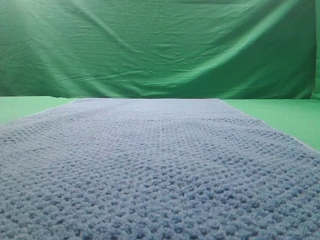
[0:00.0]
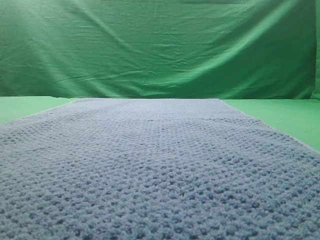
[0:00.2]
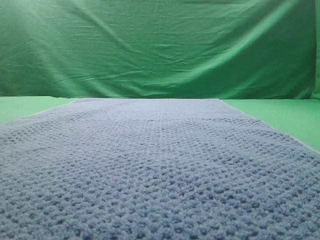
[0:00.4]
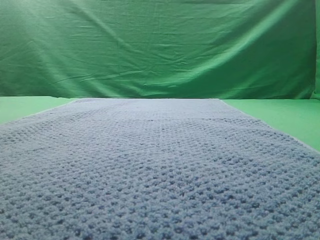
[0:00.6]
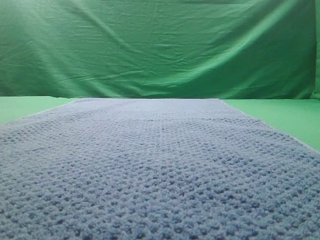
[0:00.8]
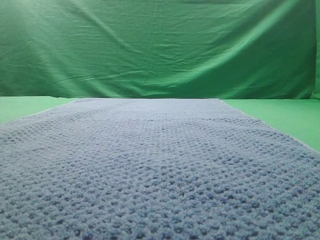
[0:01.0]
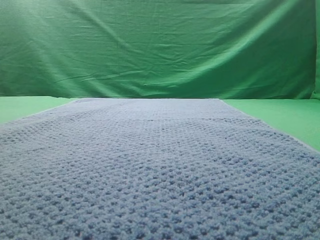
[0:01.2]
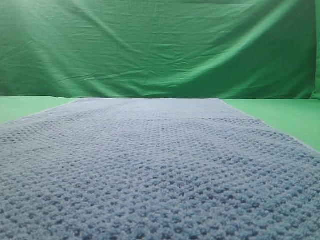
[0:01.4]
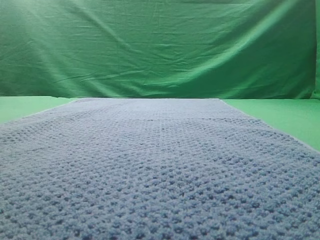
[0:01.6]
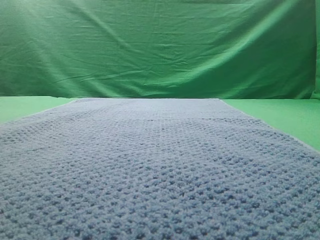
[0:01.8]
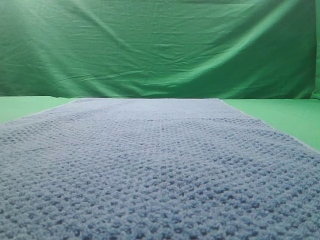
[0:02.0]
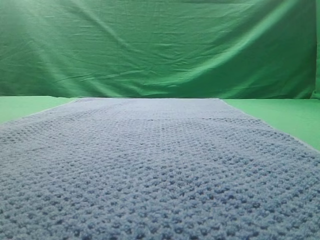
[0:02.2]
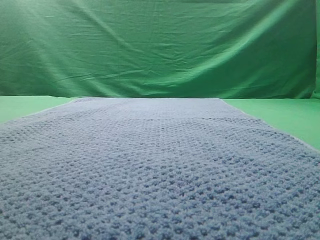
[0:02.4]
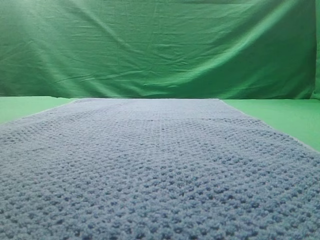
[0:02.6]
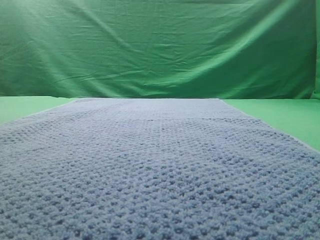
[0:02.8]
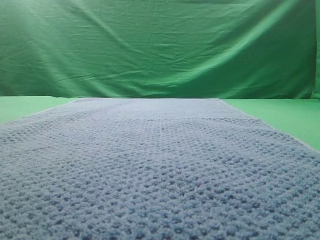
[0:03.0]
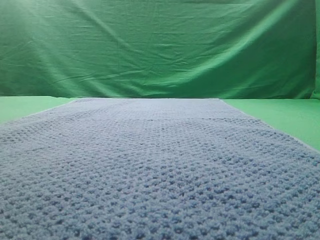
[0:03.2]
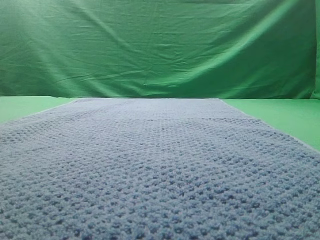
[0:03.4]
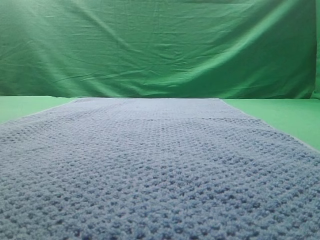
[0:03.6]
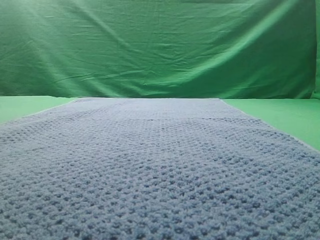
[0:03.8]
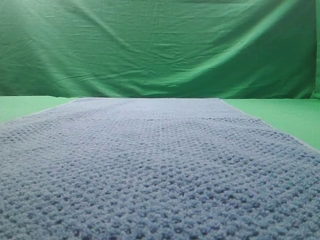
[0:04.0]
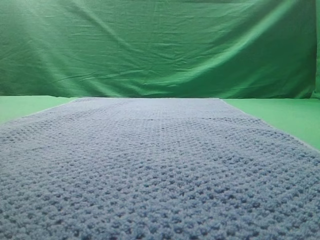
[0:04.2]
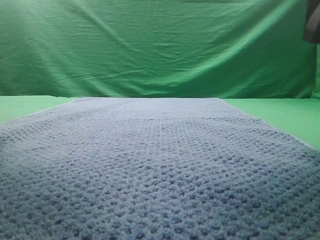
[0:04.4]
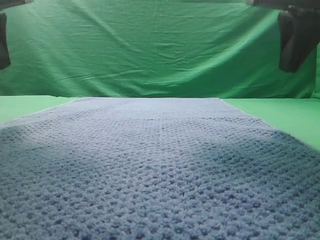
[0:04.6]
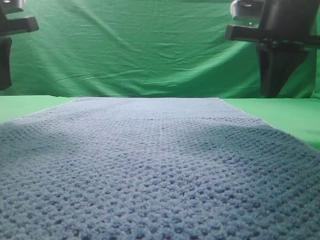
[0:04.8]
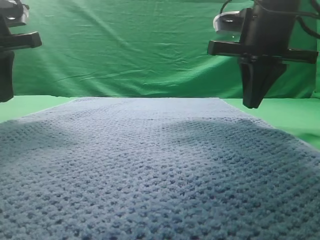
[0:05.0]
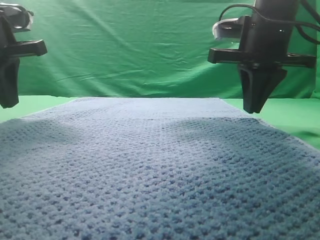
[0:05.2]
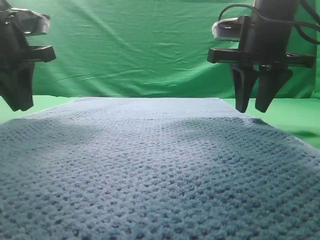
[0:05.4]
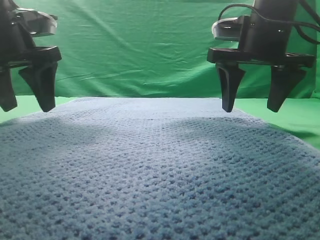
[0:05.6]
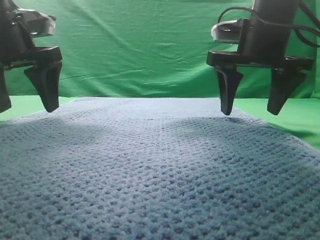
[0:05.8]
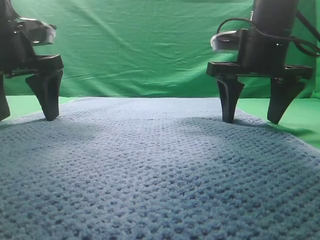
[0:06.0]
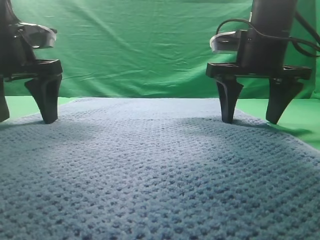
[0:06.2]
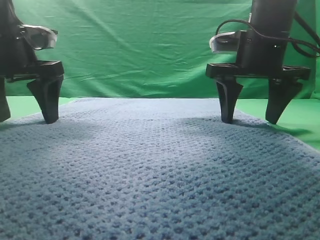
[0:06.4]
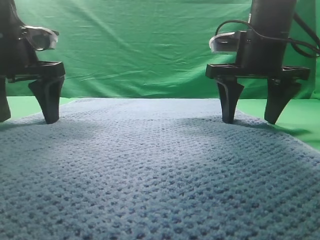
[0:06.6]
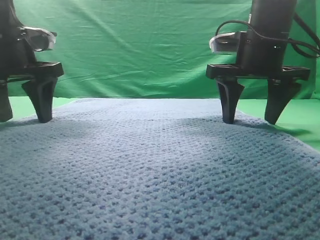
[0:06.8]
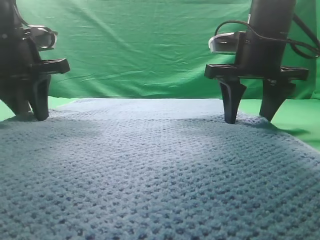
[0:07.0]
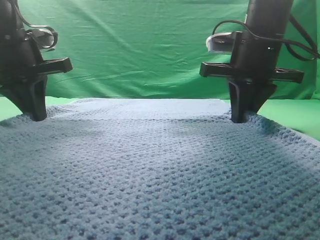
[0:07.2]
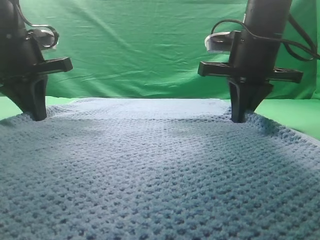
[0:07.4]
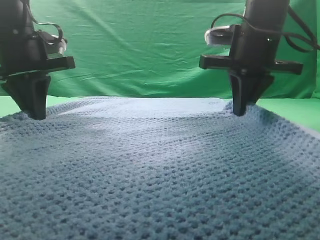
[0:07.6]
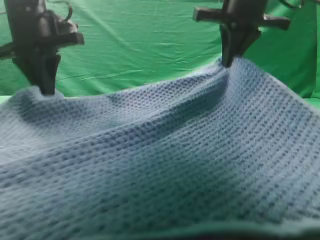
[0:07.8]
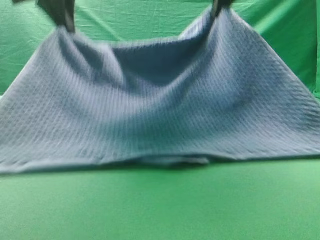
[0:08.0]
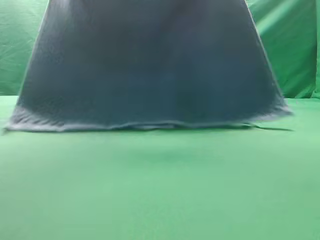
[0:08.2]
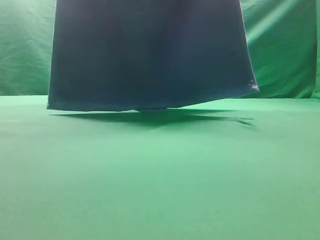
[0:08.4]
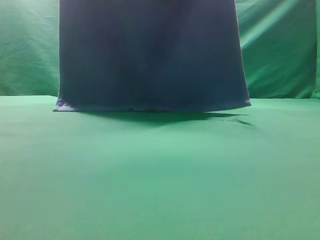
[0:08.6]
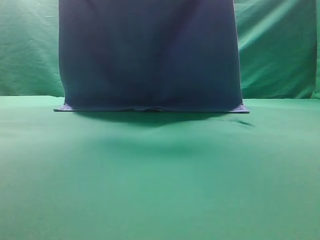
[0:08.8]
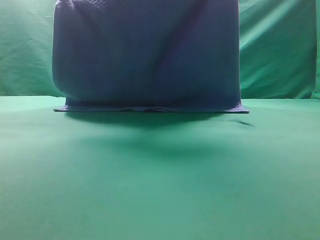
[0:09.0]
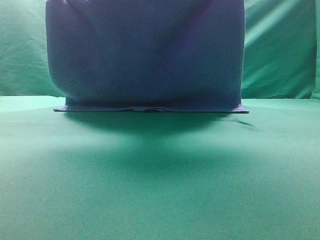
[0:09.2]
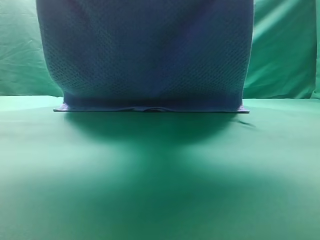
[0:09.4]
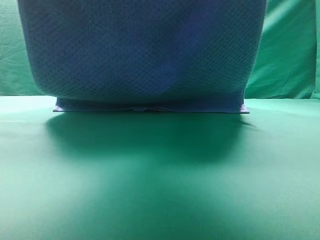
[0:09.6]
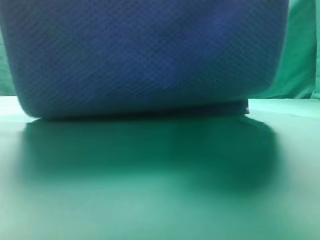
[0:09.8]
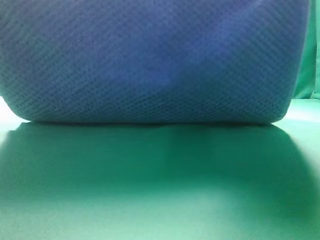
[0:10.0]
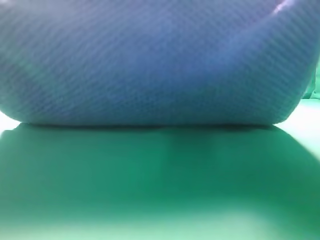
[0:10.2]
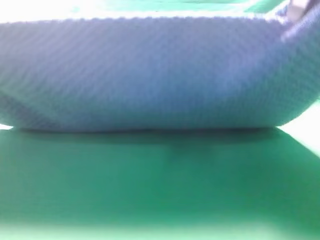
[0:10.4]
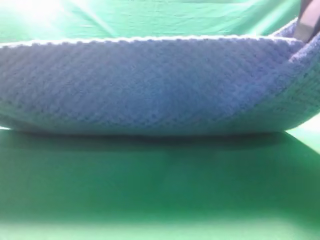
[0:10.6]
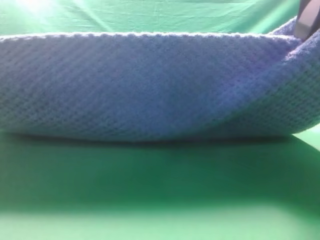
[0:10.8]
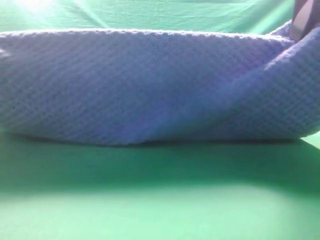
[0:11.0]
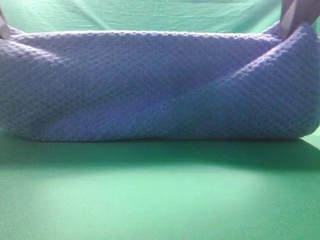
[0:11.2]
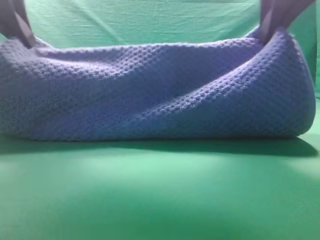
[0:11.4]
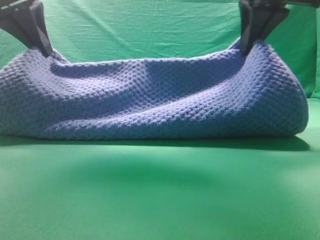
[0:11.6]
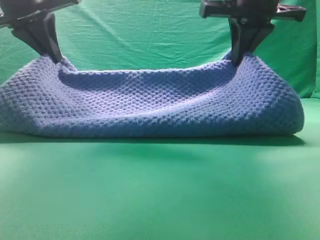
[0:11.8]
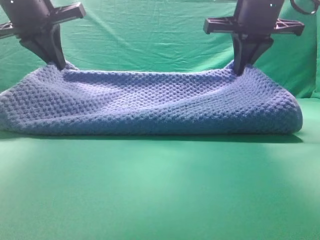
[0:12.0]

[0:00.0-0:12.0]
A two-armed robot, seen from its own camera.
Task of the whole recording: fold the towel on the table twice.
Step, 0:00.0 to 0:08.4: pick up the towel with two arm.
